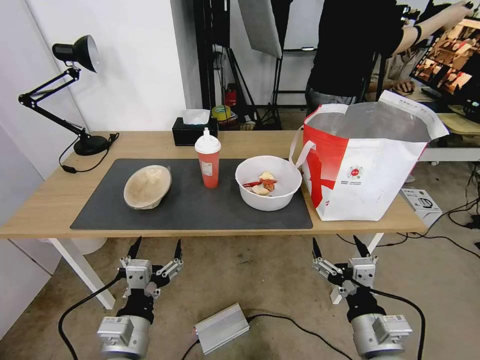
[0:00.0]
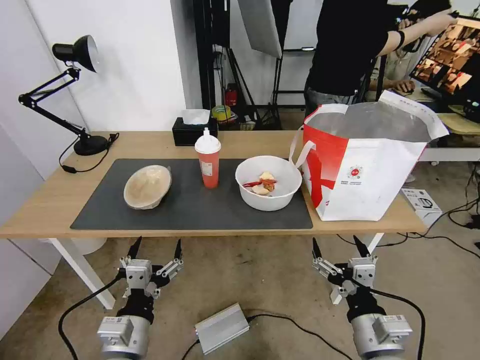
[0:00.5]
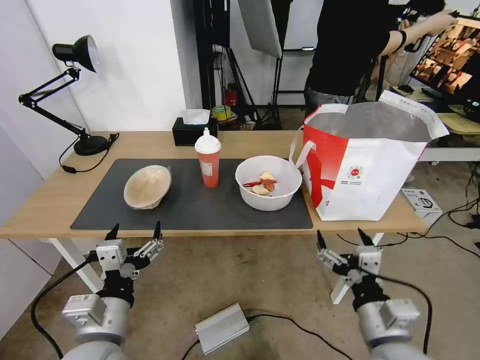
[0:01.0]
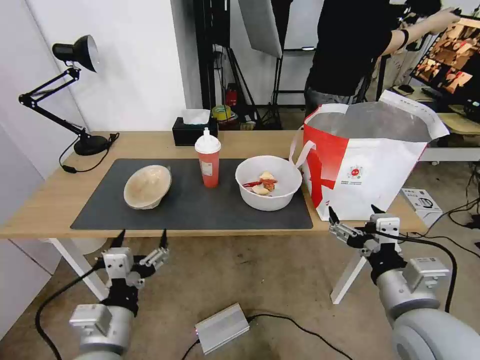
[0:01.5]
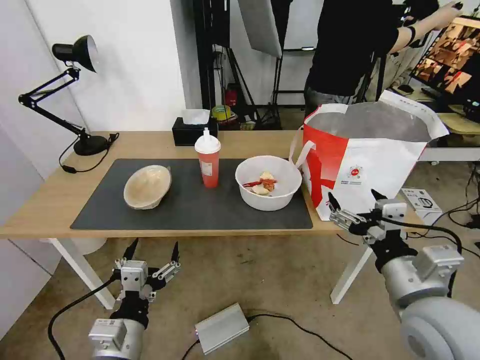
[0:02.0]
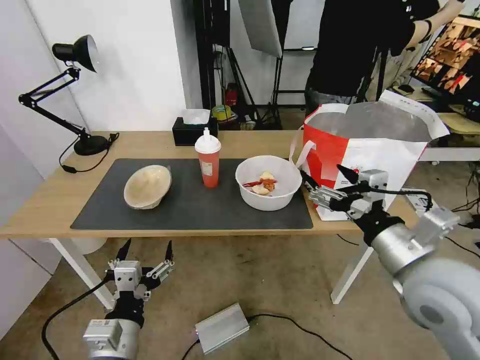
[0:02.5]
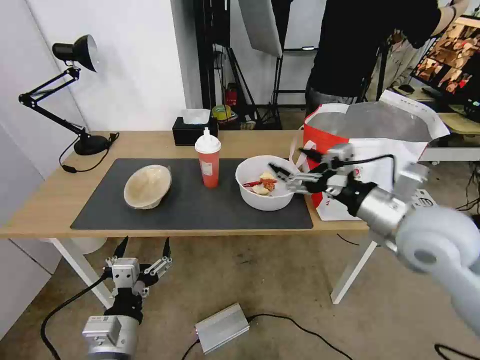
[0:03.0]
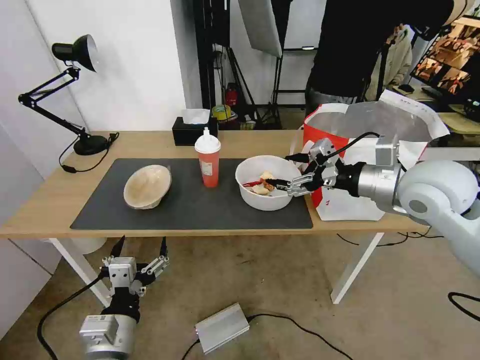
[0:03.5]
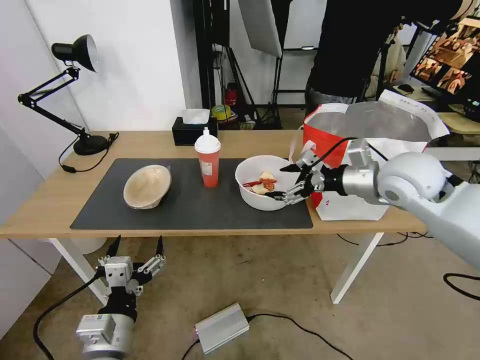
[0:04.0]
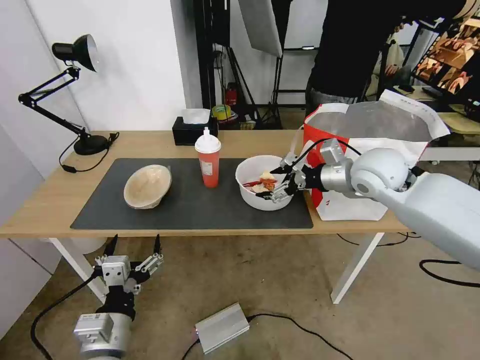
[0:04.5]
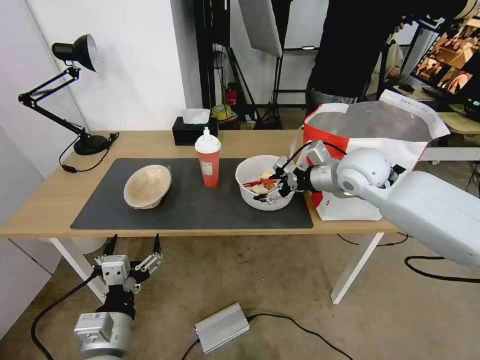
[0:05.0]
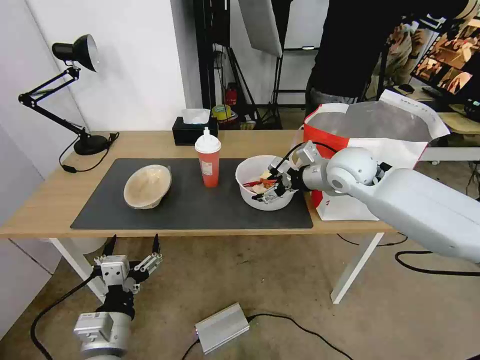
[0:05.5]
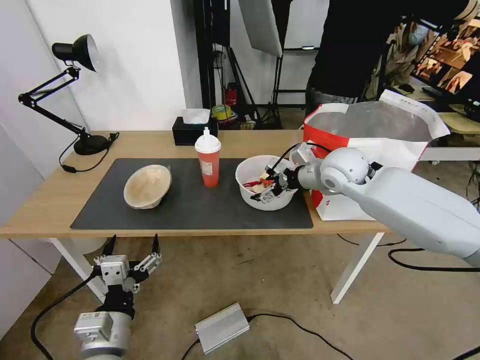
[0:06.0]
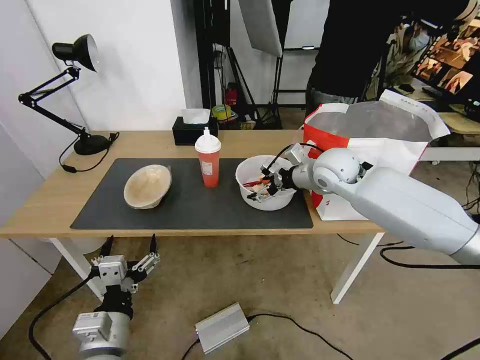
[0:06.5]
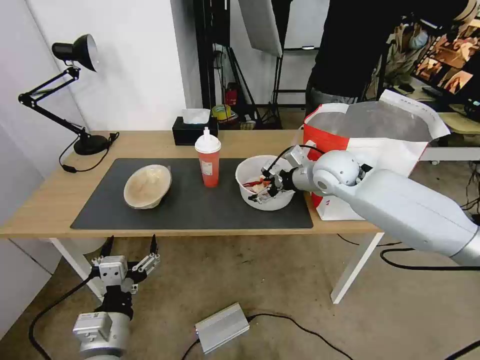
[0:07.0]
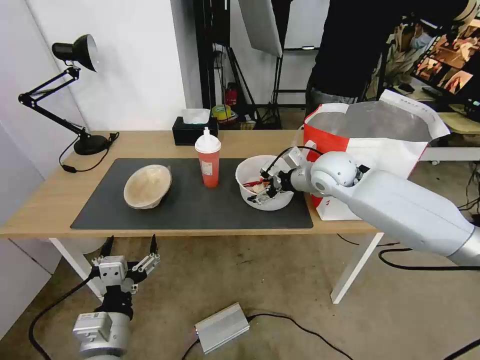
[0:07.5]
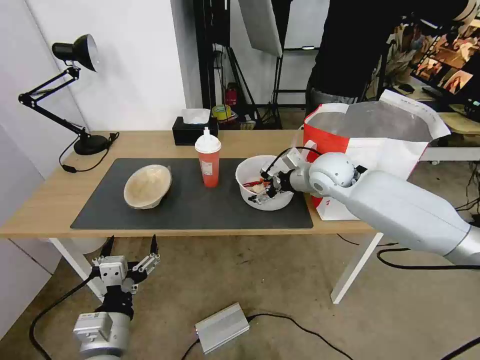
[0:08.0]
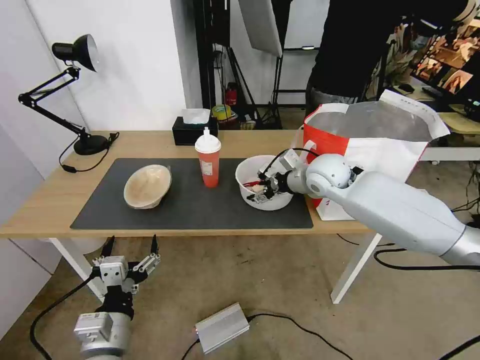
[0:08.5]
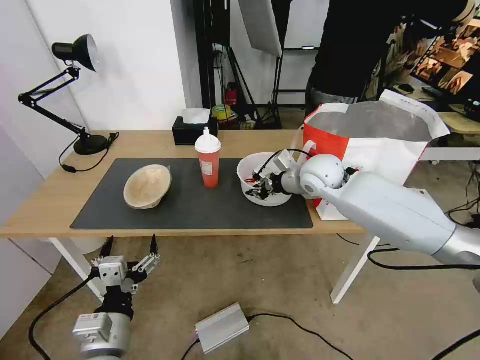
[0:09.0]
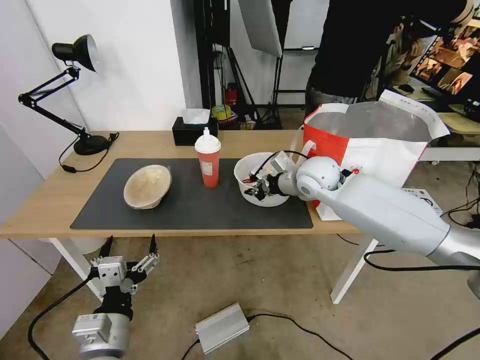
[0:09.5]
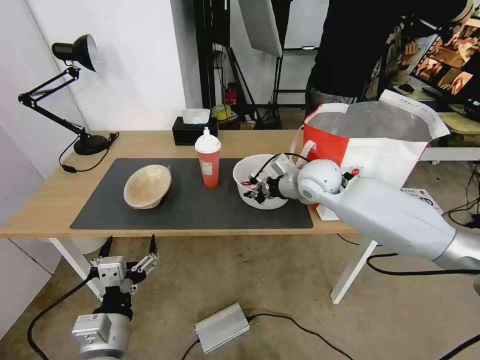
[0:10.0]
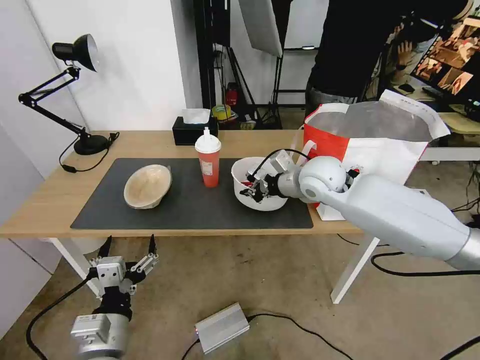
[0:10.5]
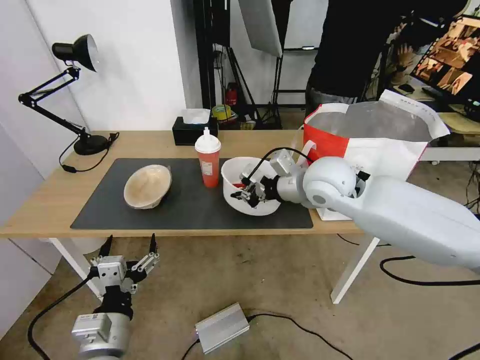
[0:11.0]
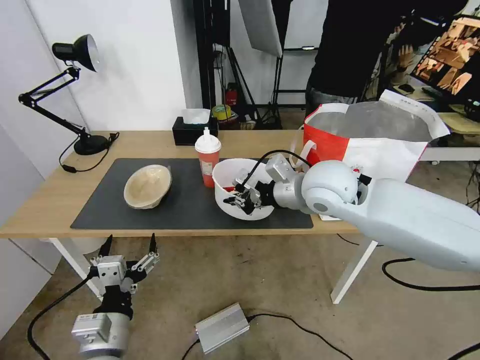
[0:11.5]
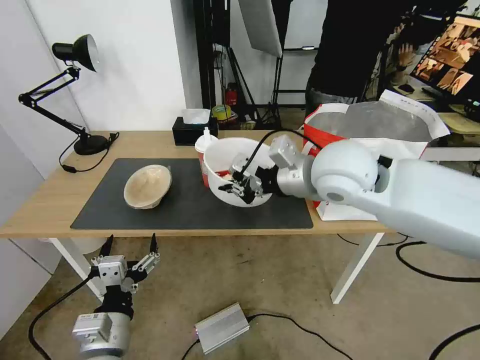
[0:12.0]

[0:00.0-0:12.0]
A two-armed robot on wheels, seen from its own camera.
Task of the whole recording: Pick up the trash from the table and place it into the takeout bag.
0:02.0 to 0:04.0: The right gripper goes some 25 cm forward.
0:04.0 to 0:06.0: The right gripper heads forward and to the left, covering about 10 cm.
0:06.0 to 0:08.0: The grippers stay close to where they were, moving slightly.
0:08.0 to 0:10.0: The right gripper closes.
0:10.0 to 0:12.0: The right gripper goes about 15 cm upward and backward.

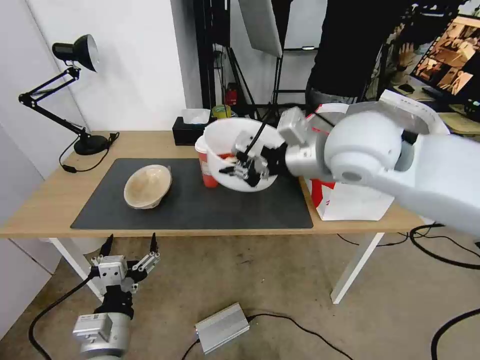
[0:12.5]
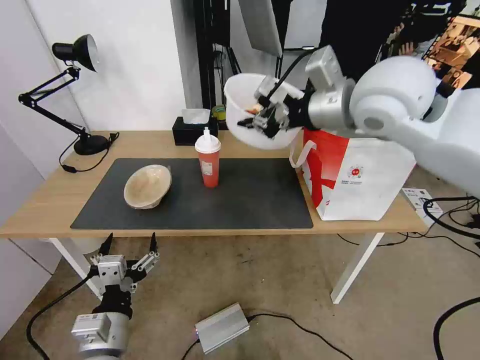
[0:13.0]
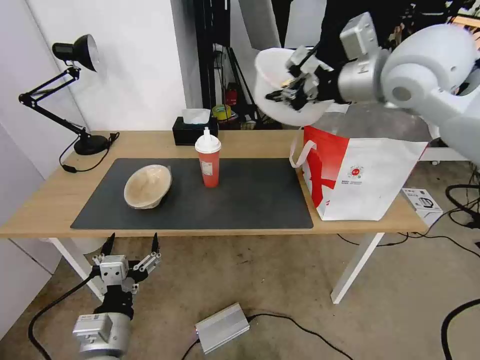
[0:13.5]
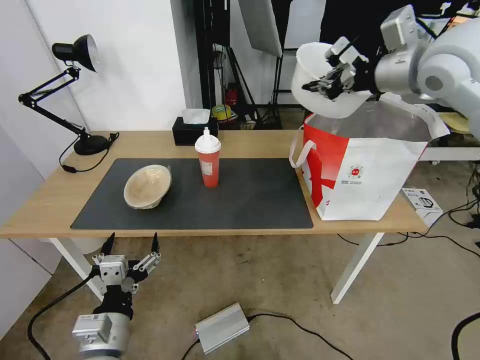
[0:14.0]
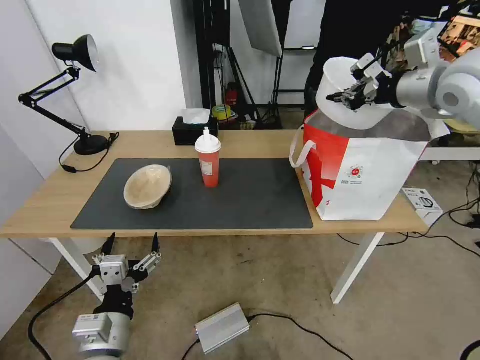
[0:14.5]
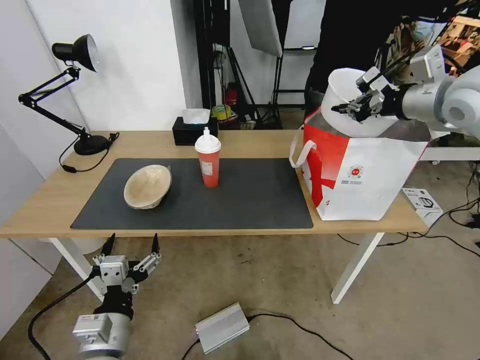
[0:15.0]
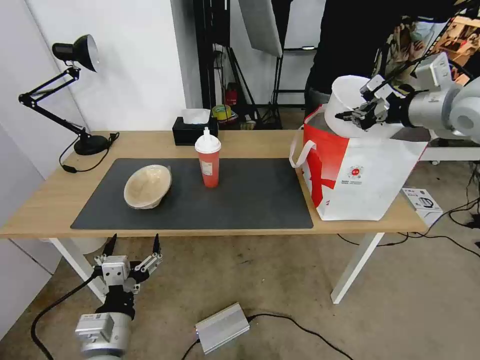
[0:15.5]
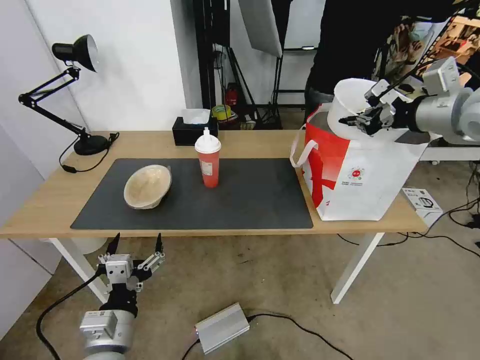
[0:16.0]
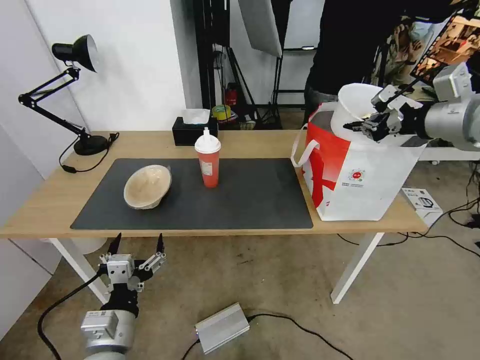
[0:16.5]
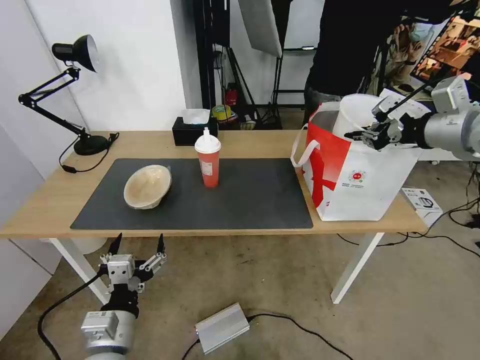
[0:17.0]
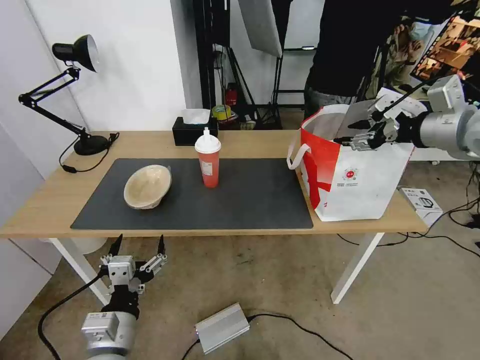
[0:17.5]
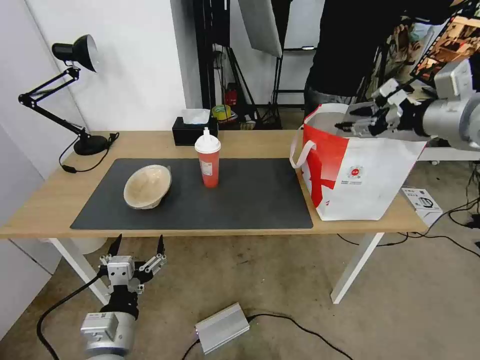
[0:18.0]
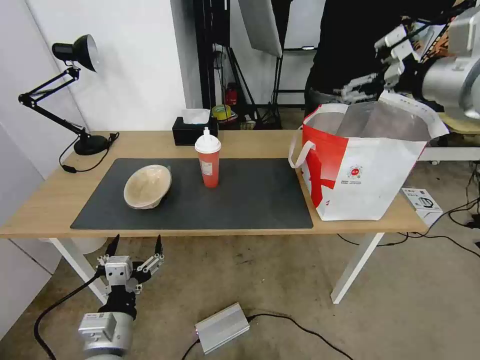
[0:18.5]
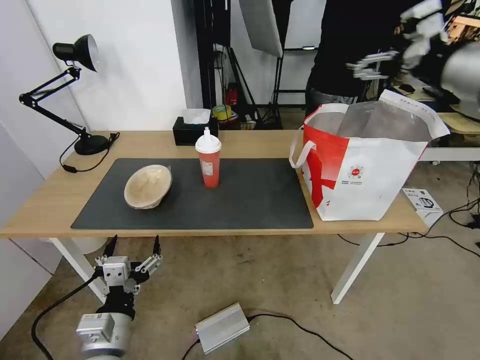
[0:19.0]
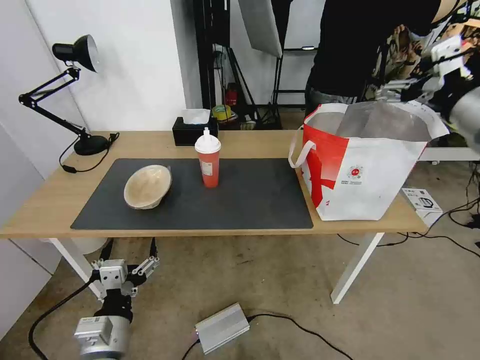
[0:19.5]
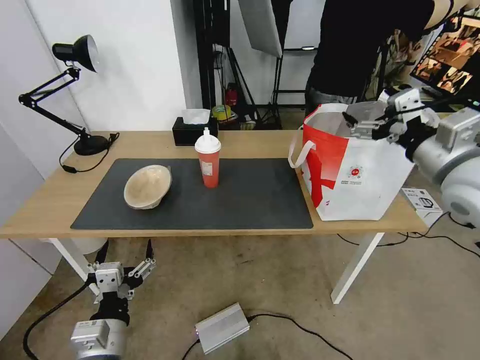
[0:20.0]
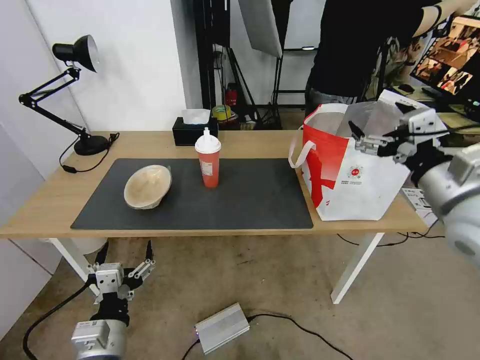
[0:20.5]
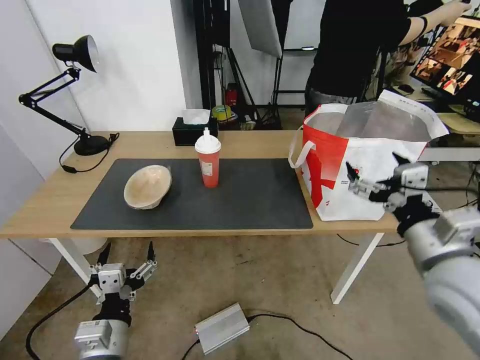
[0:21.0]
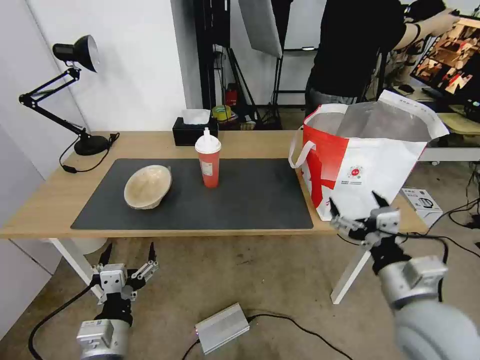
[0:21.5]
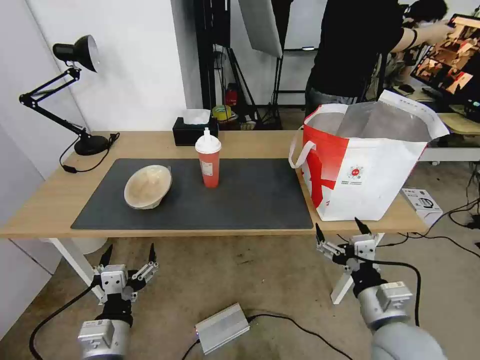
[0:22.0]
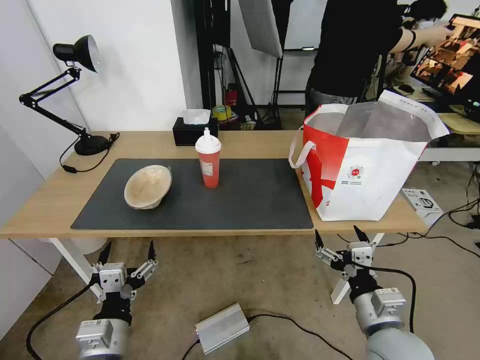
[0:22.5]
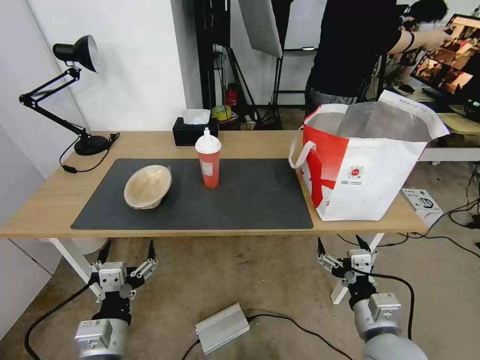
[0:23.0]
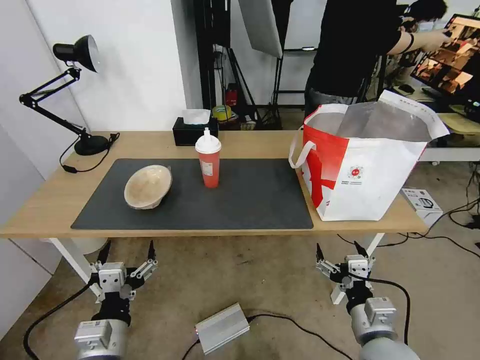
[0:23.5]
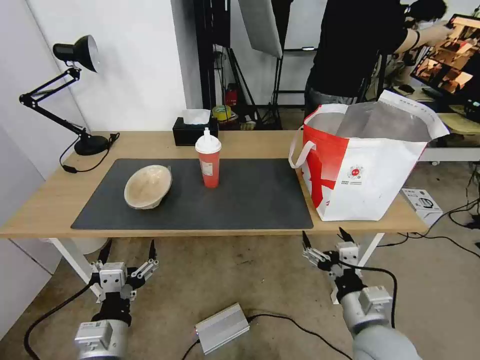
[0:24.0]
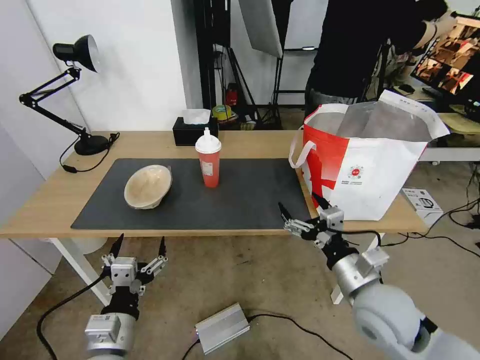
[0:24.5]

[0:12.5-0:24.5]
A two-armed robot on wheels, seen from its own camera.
Task of the whole recording: Pick up the trash from the table and place it into the takeout bag.
0:12.5 to 0:14.5: The right gripper goes about 20 cm to the right and forward.
0:14.5 to 0:16.5: The right gripper moves backward, roughly 5 cm.
0:16.5 to 0:18.5: The right gripper ends up roughly 5 cm from where it was, and opens.
0:18.5 to 0:20.5: The right gripper is displaced downward and backward by some 20 cm.
0:20.5 to 0:22.5: The right gripper shifts about 25 cm downward and backward.
0:22.5 to 0:24.5: The right gripper shifts about 5 cm forward.

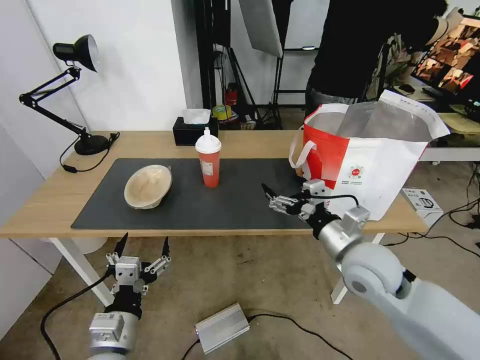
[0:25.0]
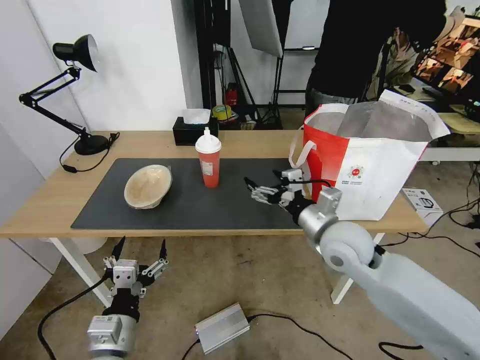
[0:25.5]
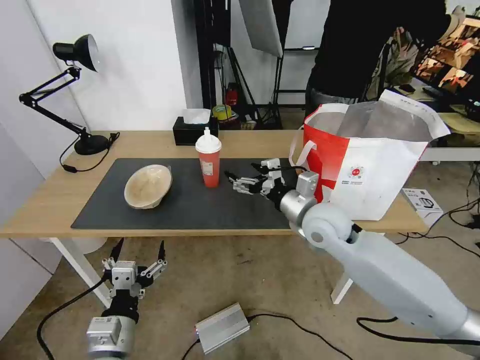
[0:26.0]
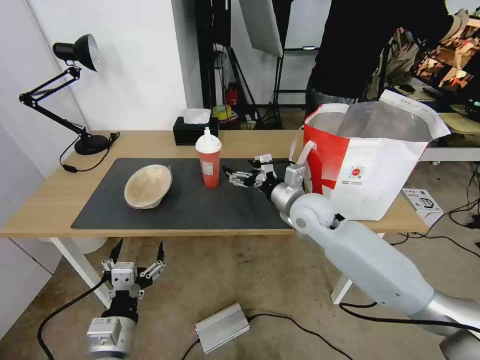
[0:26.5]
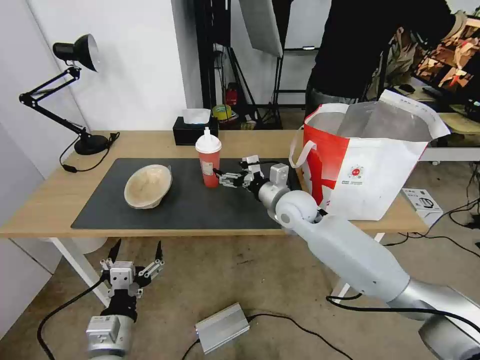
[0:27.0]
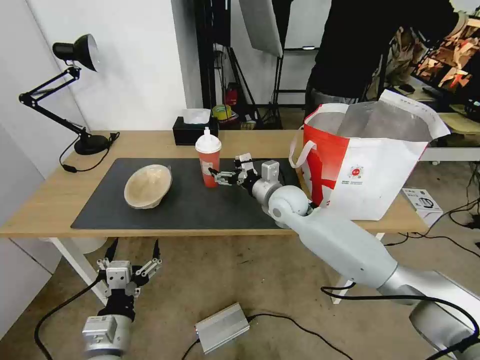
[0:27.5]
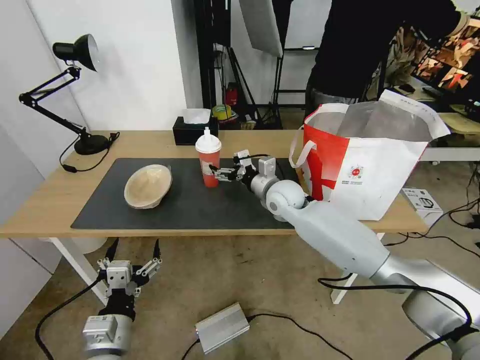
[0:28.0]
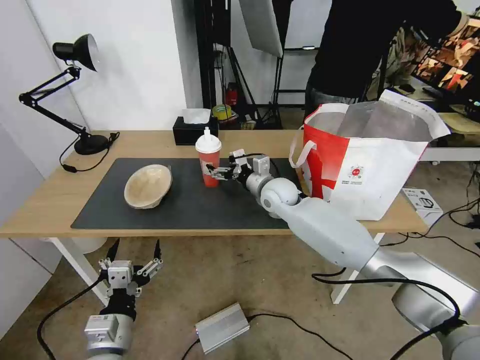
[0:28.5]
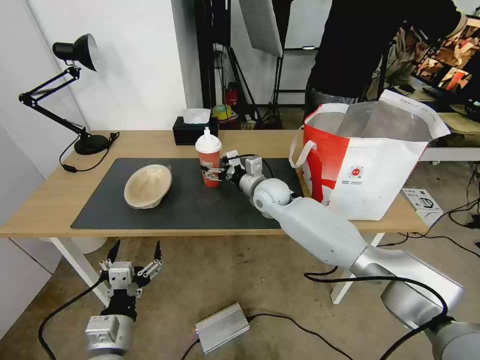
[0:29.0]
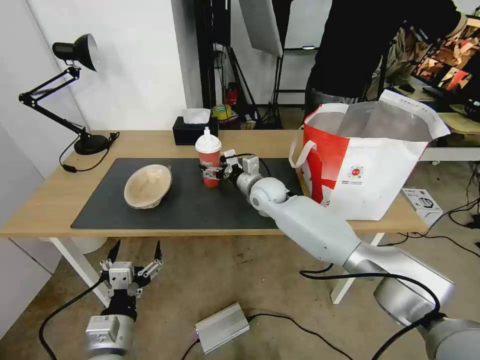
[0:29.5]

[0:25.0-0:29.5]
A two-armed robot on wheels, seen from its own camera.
Task of the whole recording: Pick up the trash from the table and place it into the takeout bag.
0:25.0 to 0:27.0: The right gripper moves forward and to the left, roughly 20 cm.
0:27.0 to 0:29.5: The right gripper moves forward and to the left, some 10 cm.
